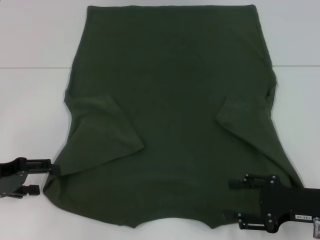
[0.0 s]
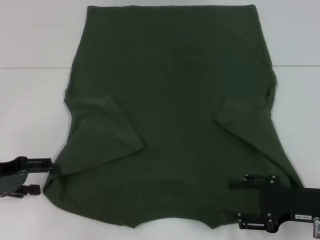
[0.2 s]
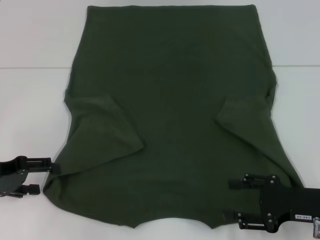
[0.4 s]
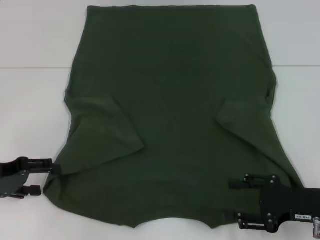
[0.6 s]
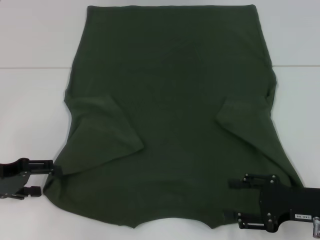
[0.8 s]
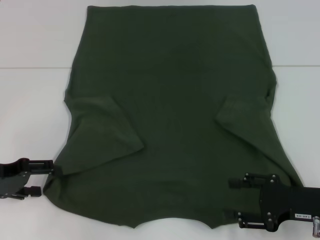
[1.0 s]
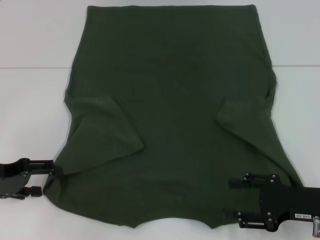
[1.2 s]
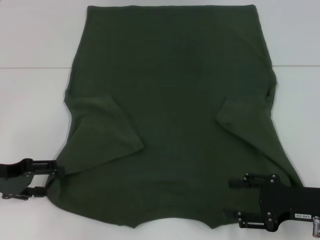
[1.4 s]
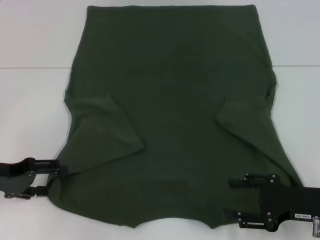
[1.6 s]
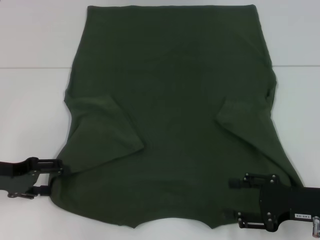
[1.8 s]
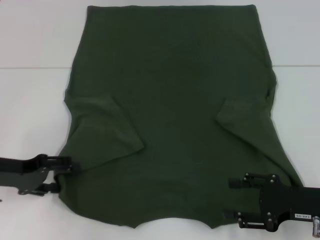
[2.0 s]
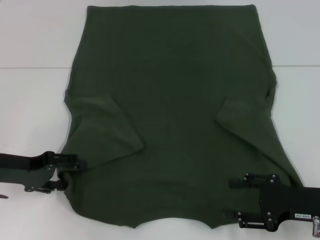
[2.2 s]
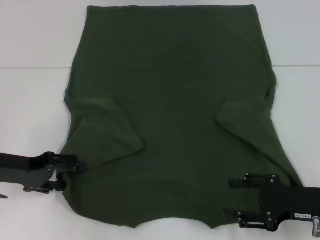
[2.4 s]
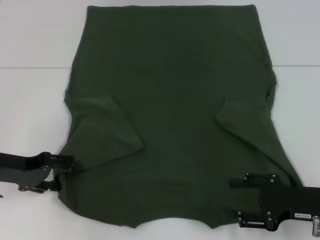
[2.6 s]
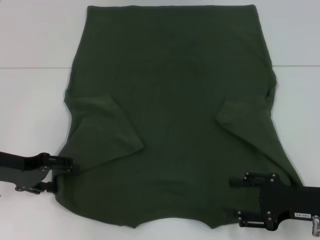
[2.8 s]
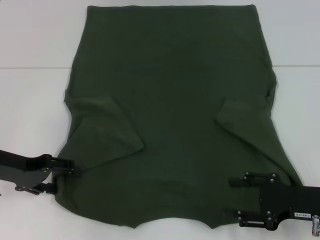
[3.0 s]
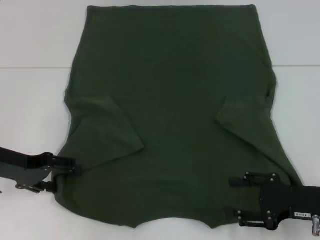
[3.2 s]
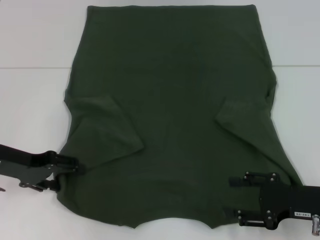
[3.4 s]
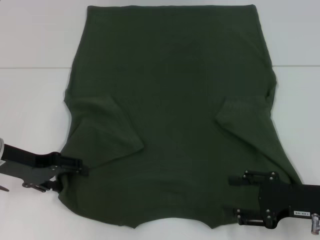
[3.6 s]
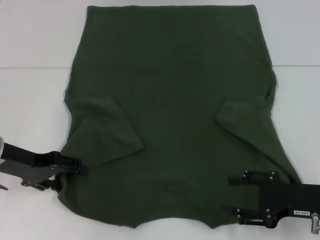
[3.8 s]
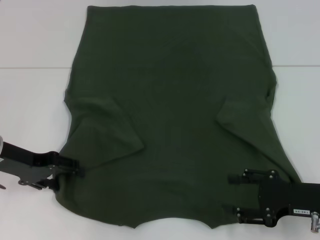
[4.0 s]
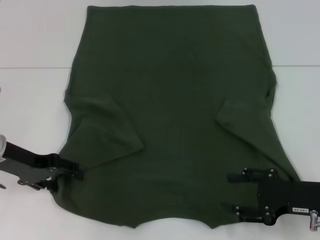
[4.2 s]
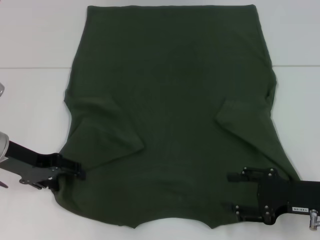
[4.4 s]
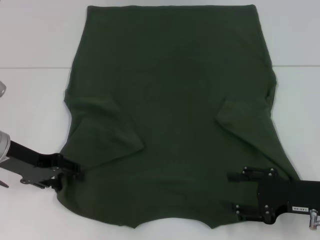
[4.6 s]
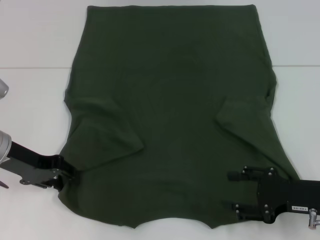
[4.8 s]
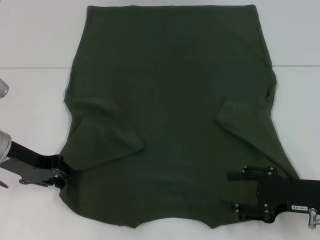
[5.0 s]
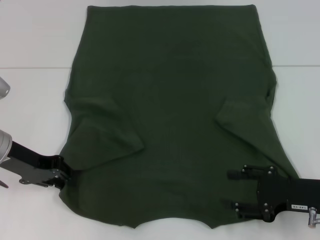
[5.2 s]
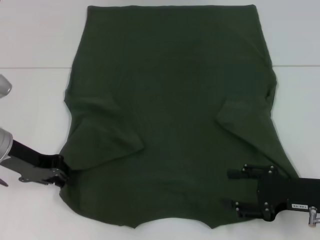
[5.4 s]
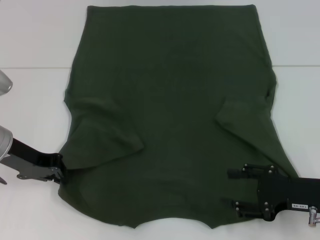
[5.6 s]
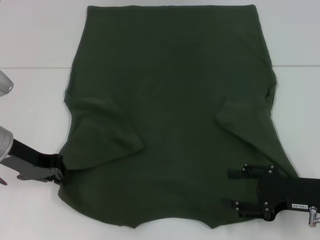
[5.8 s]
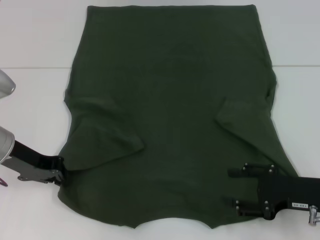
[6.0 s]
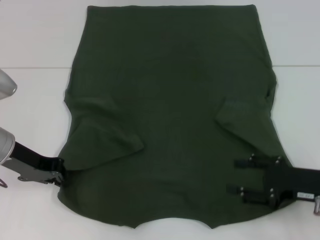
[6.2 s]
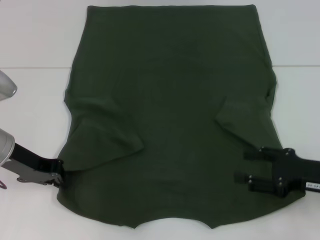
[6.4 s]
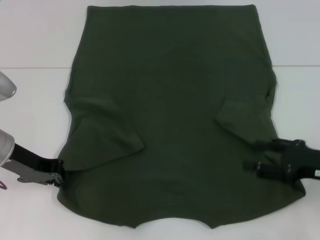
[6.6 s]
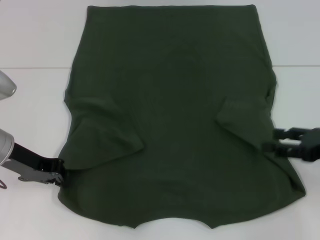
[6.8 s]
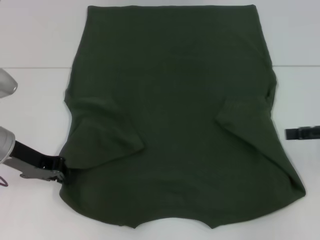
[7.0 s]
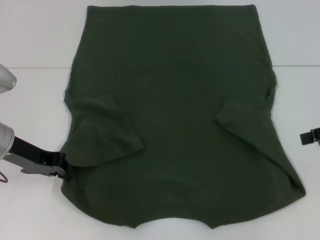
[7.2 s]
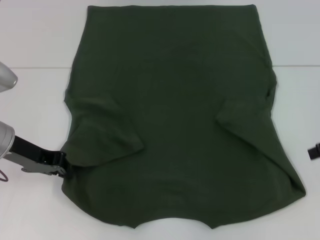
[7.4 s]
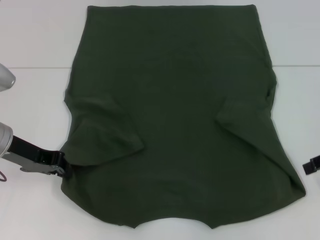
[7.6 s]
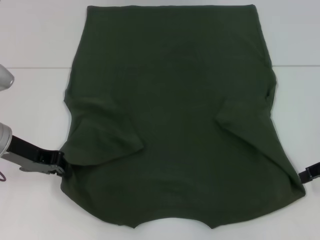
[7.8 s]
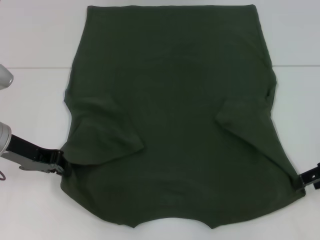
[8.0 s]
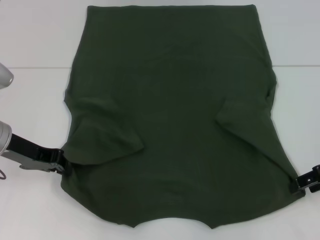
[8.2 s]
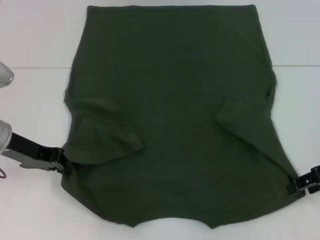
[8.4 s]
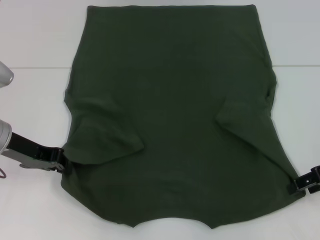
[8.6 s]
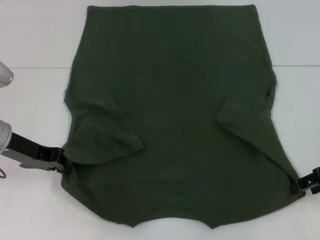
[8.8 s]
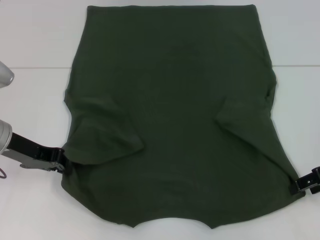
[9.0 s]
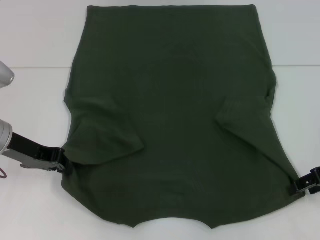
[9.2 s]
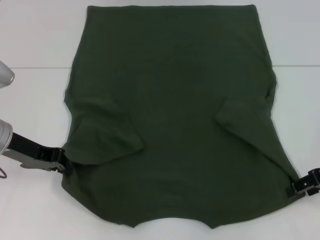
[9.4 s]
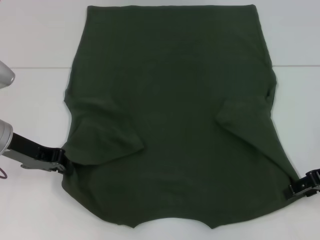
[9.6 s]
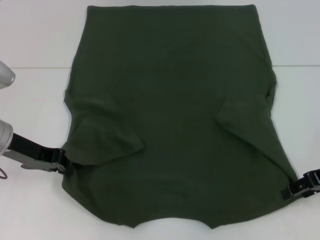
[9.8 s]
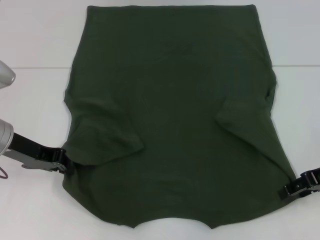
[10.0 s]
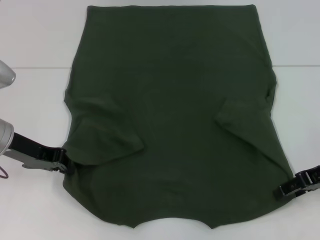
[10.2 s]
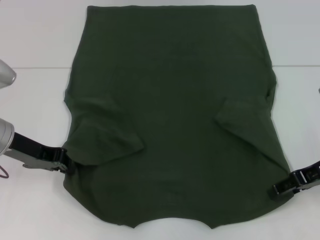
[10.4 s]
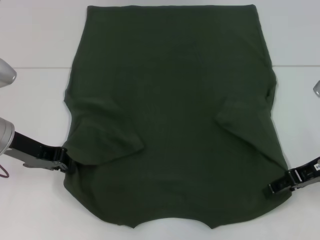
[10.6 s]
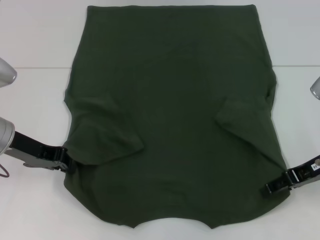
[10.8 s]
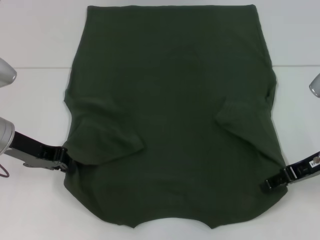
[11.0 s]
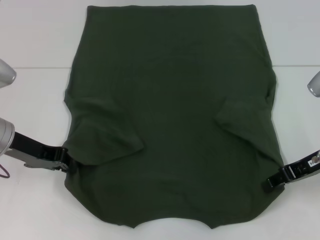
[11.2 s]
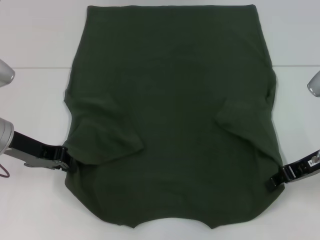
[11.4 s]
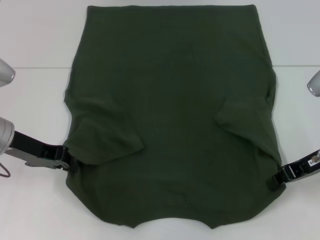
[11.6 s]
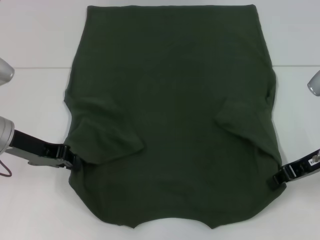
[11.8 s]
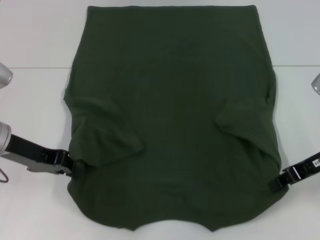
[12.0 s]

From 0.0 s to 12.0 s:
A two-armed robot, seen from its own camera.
Step, from 0.0 s to 5.6 s: Grab the bottom left corner with your left hand.
Step, from 5.8 s to 11.6 s: Grab the bottom right corner with your right hand.
From 0.0 s to 1.6 s: Both grippers stay about where they are.
From 1.6 s to 3.0 s: The grippers move only a little.
From 3.0 s to 4.4 s: The grippers make only small movements.
From 4.4 s to 6.0 s: The left gripper closes its fingers.
From 6.0 s to 7.6 s: The right gripper heads upward, forward and to the right, covering approximately 15 cm.
From 7.6 s to 9.0 s: The grippers make only small movements.
From 9.0 s to 10.4 s: The grippers stay close to where they were, moving slightly.
From 10.4 s to 12.0 s: The right gripper closes.

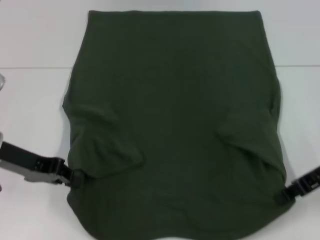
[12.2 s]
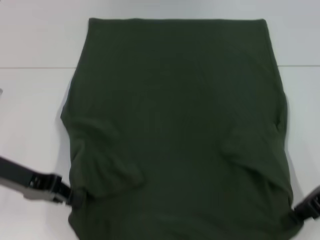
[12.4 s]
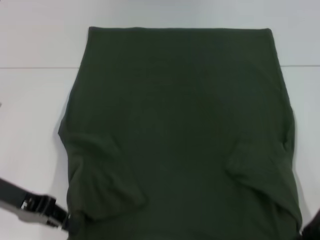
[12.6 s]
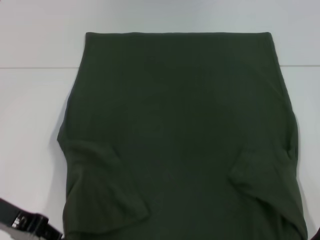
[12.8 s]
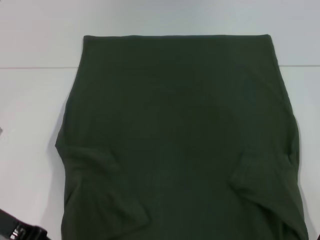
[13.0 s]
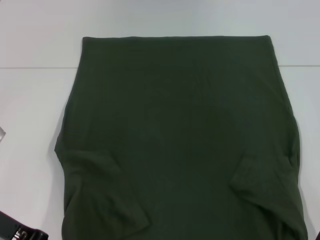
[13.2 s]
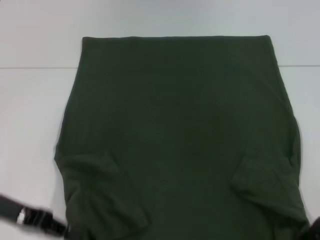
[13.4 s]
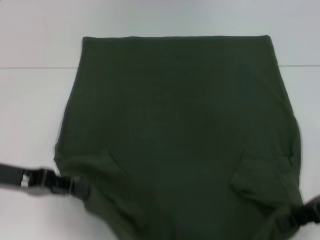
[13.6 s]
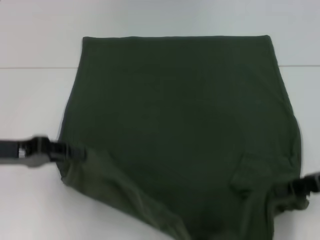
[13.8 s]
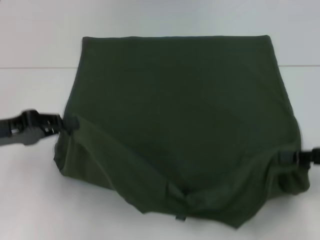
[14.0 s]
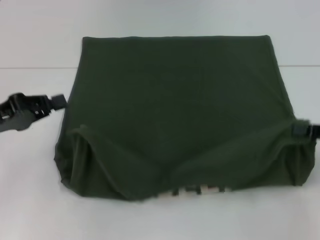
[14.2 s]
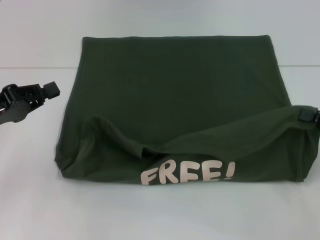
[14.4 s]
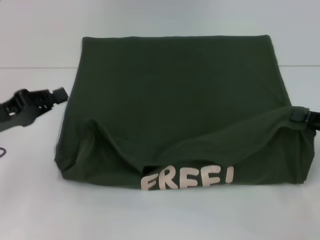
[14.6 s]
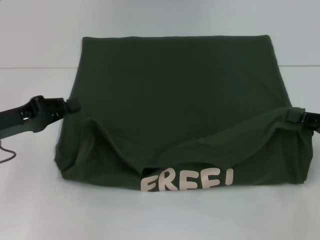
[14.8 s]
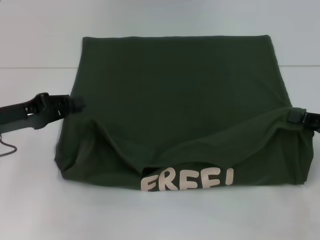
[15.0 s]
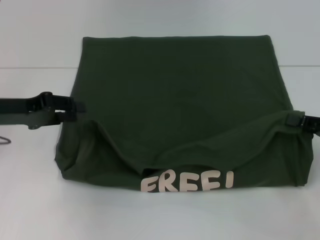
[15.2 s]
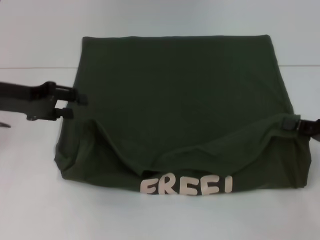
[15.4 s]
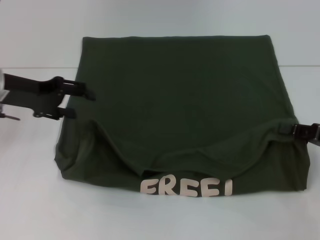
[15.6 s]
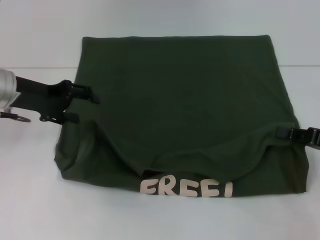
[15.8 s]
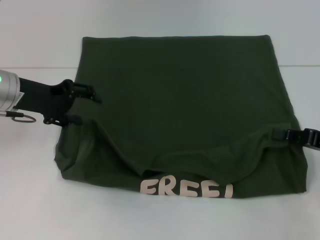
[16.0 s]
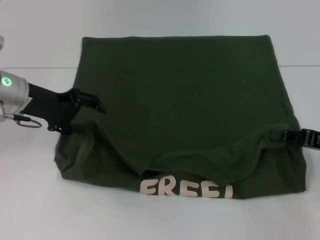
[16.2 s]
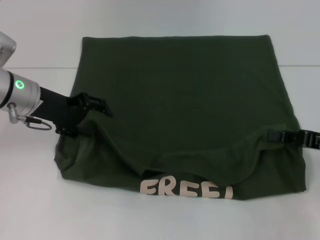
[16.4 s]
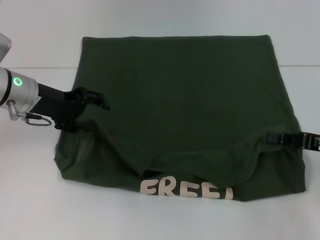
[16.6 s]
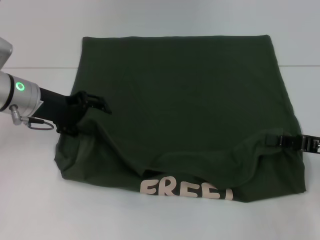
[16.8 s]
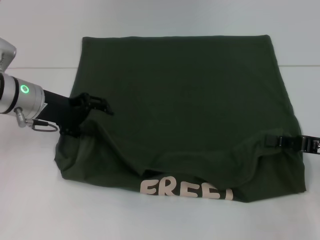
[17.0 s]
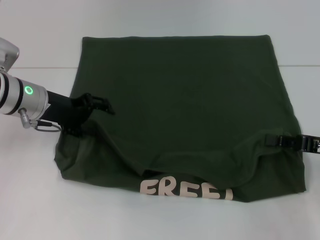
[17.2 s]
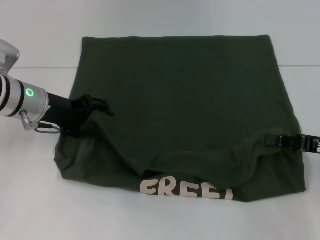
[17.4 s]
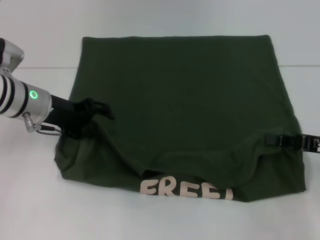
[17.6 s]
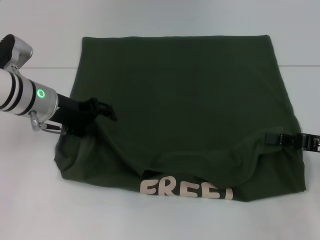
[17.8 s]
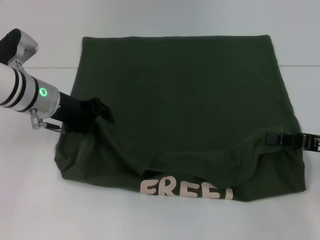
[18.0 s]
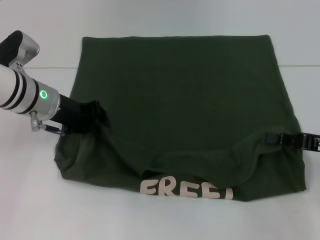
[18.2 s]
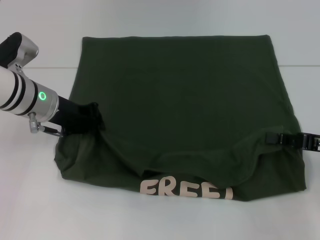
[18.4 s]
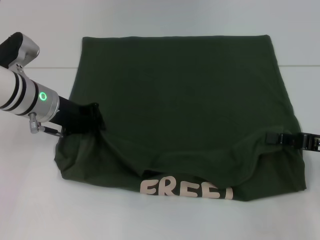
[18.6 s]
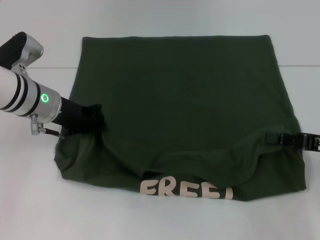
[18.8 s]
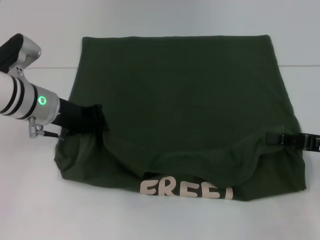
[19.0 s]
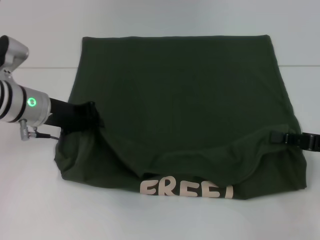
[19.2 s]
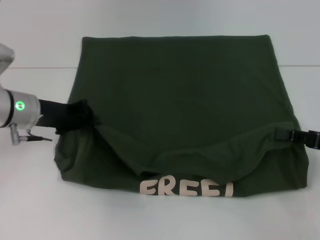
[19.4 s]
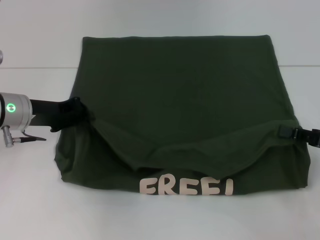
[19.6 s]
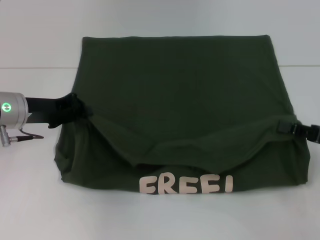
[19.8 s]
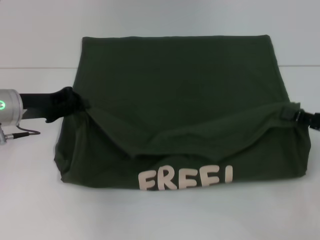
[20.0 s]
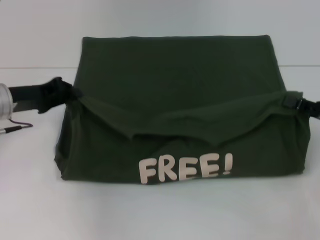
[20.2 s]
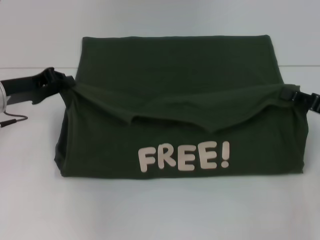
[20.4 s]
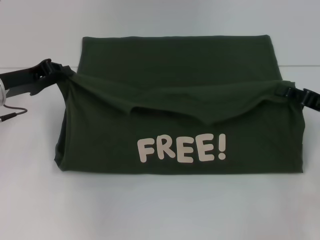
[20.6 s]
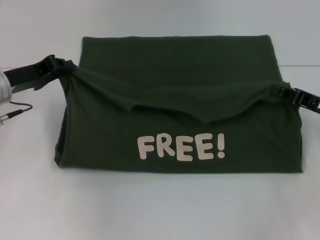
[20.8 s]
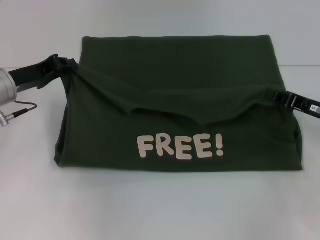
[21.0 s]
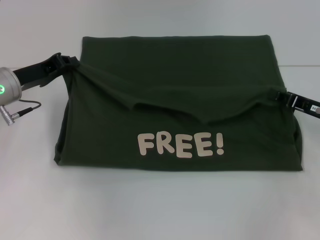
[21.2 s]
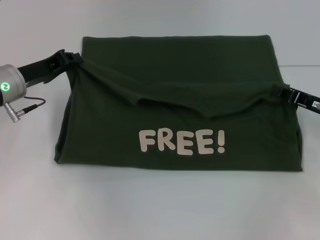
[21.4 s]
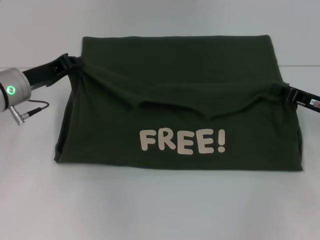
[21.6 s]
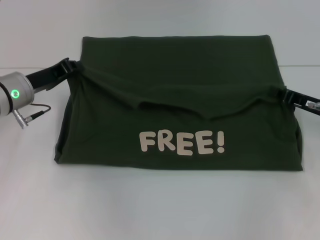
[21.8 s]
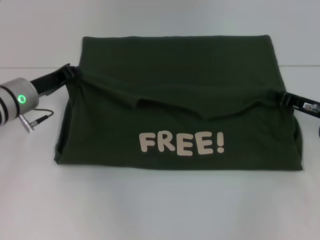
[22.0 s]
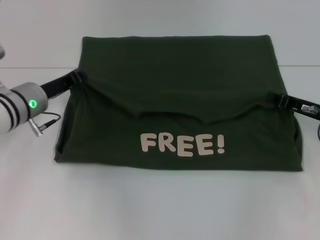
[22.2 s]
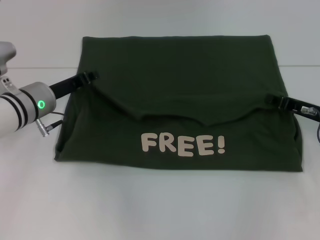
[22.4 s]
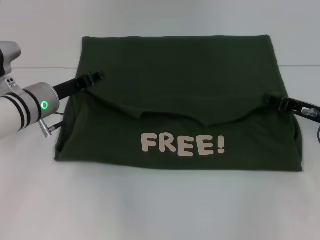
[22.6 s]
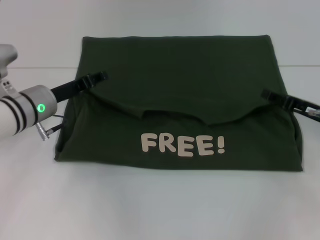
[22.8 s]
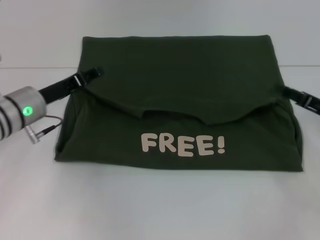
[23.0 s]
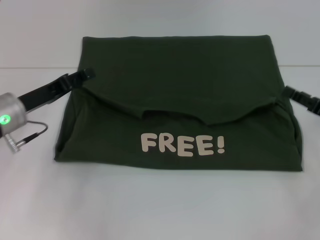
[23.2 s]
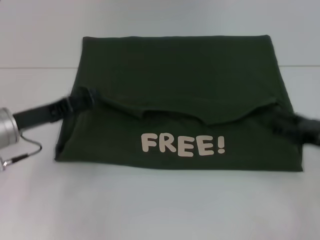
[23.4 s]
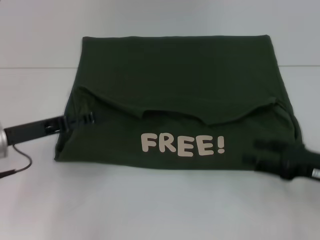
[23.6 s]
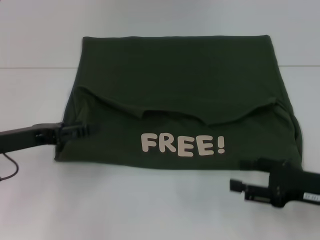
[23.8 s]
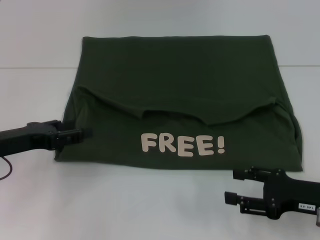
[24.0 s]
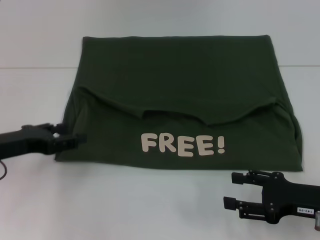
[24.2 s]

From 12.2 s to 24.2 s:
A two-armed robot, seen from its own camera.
Step, from 12.2 s to 22.8 s: Fold the clothes with your left hand.
Step, from 12.2 s to 22.8 s: Fold the clothes with your right hand.
From 12.2 s to 13.8 s: The right gripper ends up about 5 cm from where it was.
From 13.8 s to 15.2 s: The left gripper shifts about 5 cm forward.
From 15.2 s to 16.6 s: The left gripper goes roughly 10 cm forward and to the right, and opens.
From 16.6 s to 18.2 s: The grippers make only small movements.
From 18.2 s to 19.8 s: The left gripper moves roughly 5 cm, and closes its fingers.
From 19.8 s to 21.2 s: The right gripper travels forward by some 5 cm.
From 21.2 s to 22.6 s: The left gripper heads to the right, covering about 5 cm.
From 22.6 s to 24.2 s: The left gripper is displaced backward and to the left by roughly 15 cm, and opens its fingers. The right gripper heads backward, covering some 10 cm, and opens.
